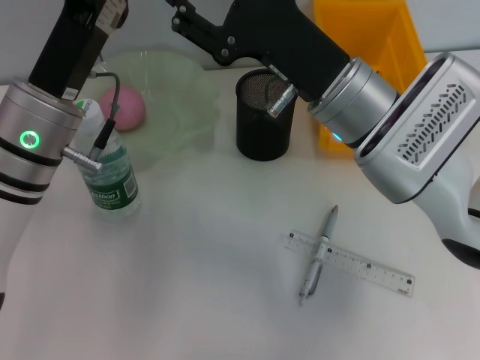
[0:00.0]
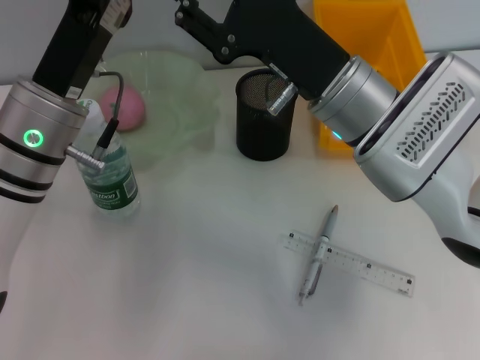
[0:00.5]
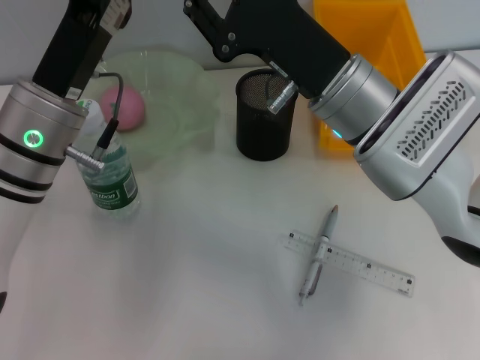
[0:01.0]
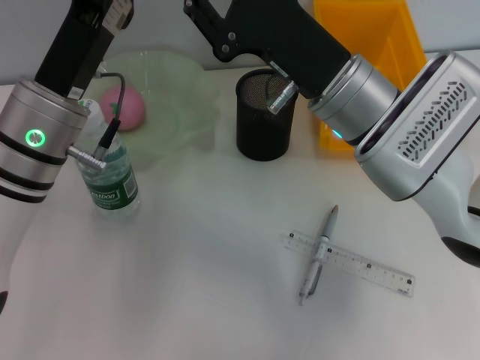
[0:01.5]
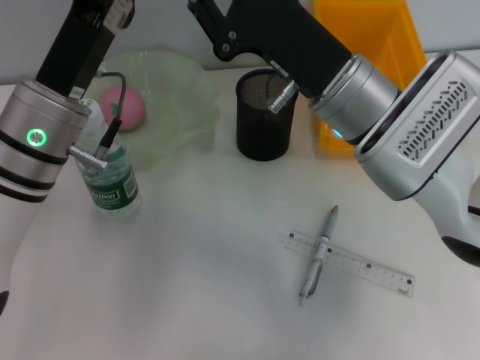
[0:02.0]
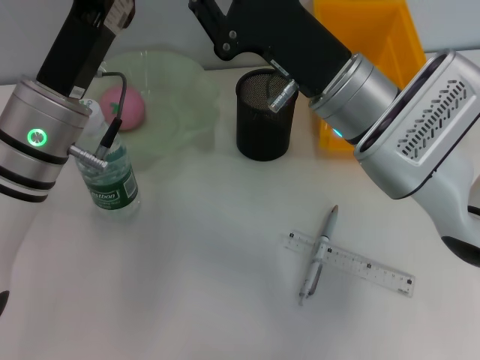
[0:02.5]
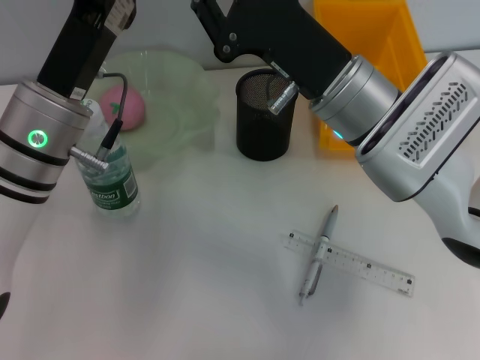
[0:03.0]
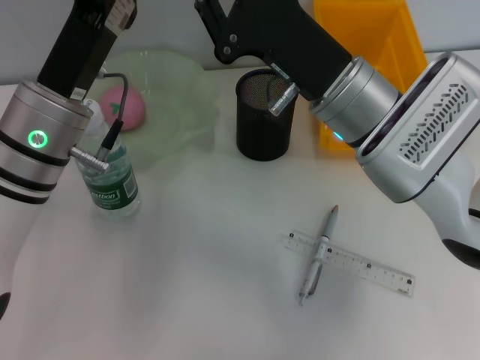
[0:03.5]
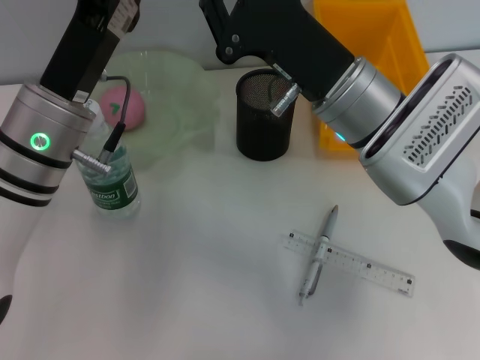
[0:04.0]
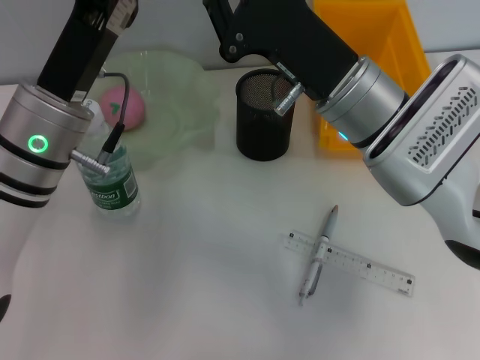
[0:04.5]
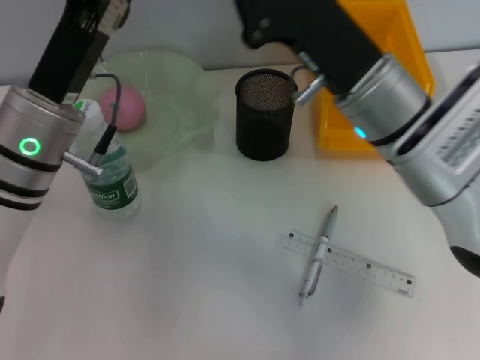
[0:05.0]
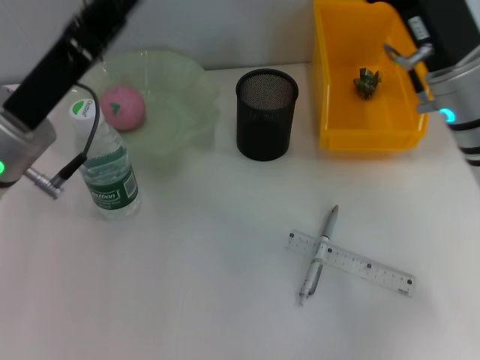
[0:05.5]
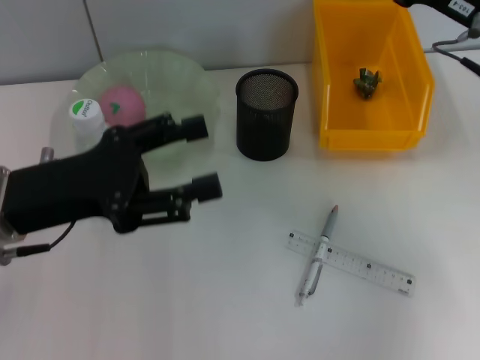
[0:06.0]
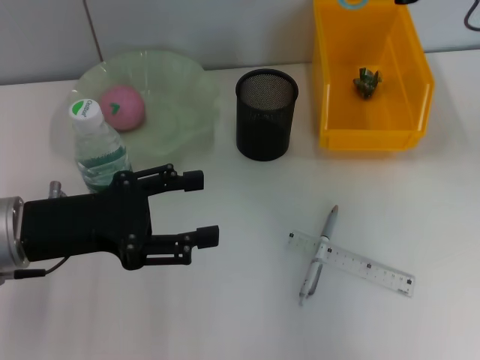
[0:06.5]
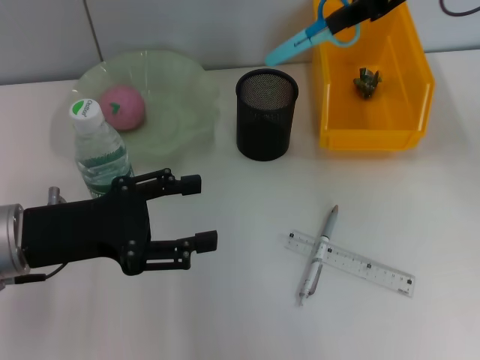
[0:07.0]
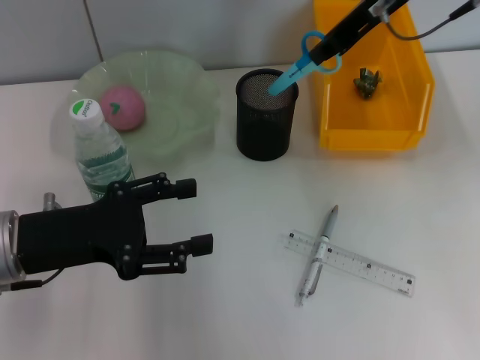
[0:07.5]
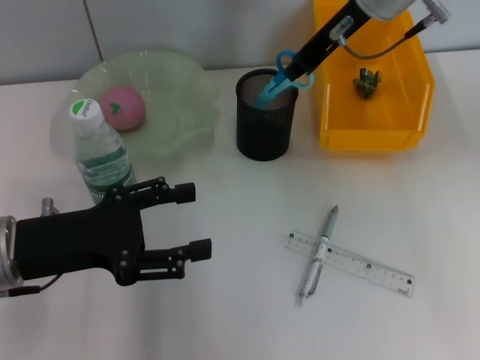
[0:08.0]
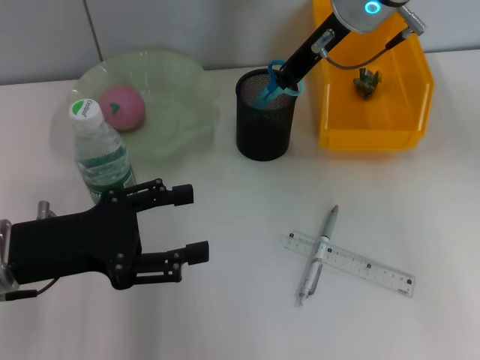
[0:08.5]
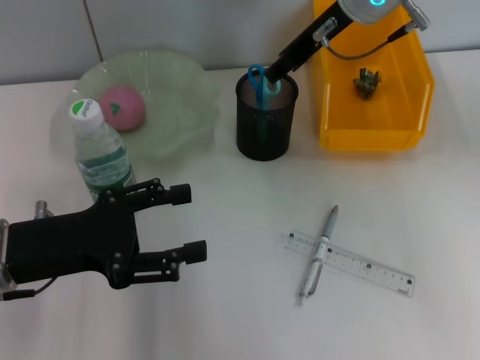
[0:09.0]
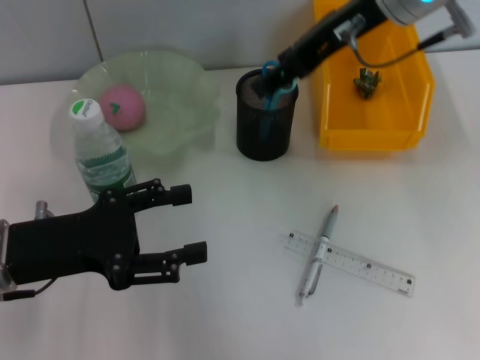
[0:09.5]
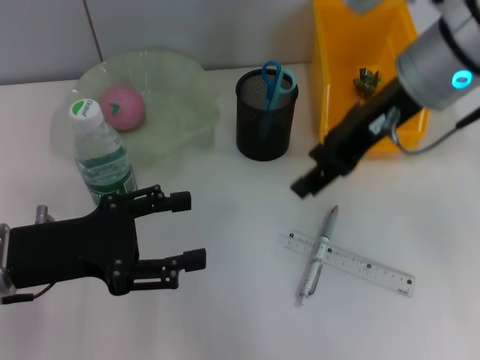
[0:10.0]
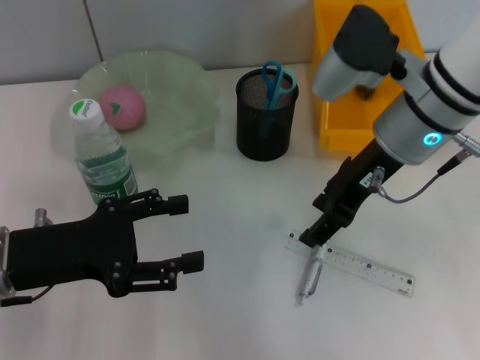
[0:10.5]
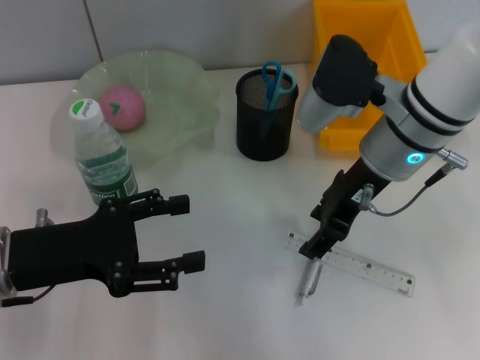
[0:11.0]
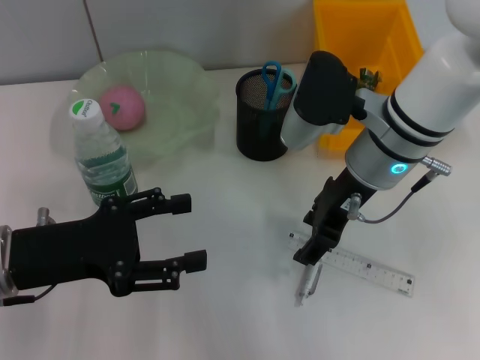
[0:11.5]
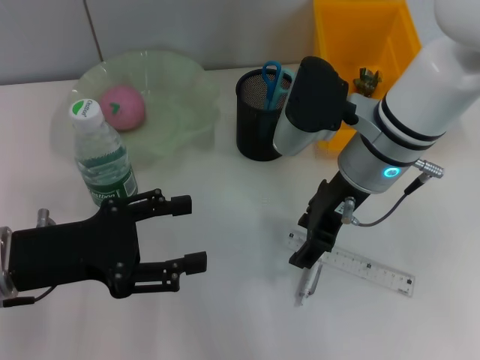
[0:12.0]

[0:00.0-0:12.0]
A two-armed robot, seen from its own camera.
Step, 0:00.0 to 0:05.0: Pass the blue scissors from the left hand to the right hand.
Step, 0:05.5 to 0:08.5: Place the blue scissors into the pen holder with the right hand.
0:00.0 to 0:02.0: The right gripper closes its fingers.
0:02.0 to 0:04.0: The two grippers keep their place.
0:04.0 to 0:06.0: The left gripper goes roughly 5 cm to the left, and opens its fingers. The right gripper heads to the right, covering roughly 15 cm.
0:06.0 to 0:08.0: The right gripper moves to the left, forward and upward, about 15 cm.
0:08.0 to 0:10.0: The right gripper goes some 10 cm backward, and opens its fingers.
0:10.0 to 0:12.0: The right gripper moves downward, approximately 10 cm.

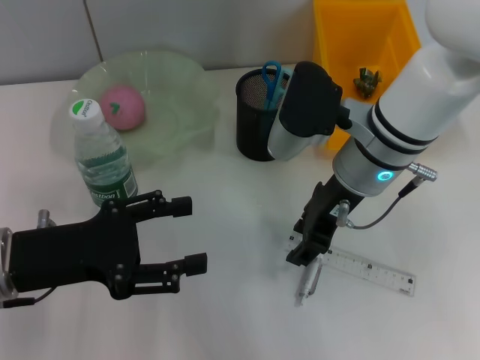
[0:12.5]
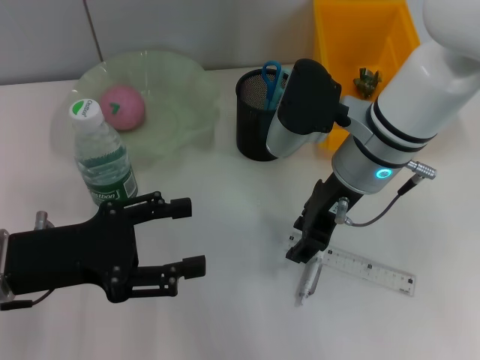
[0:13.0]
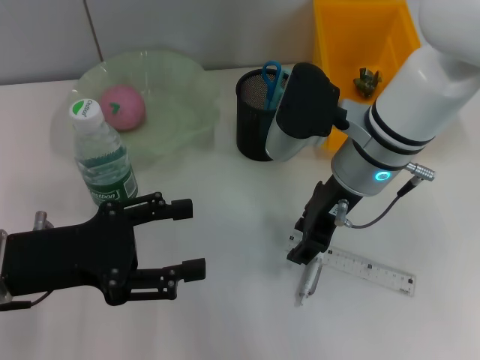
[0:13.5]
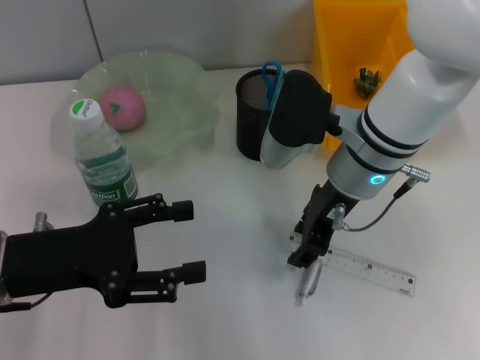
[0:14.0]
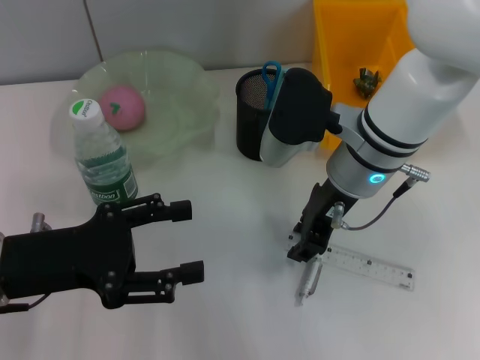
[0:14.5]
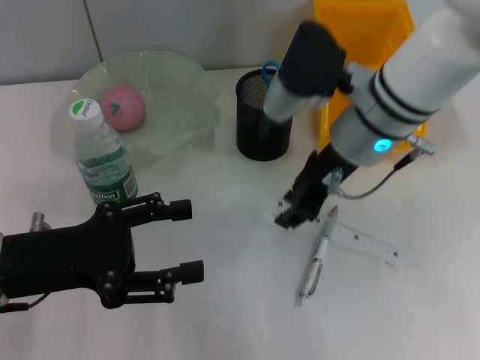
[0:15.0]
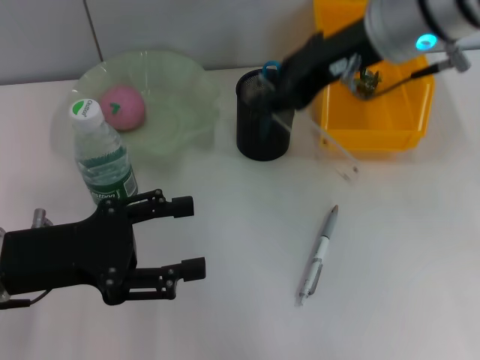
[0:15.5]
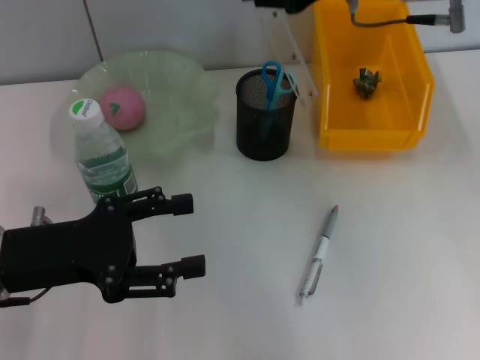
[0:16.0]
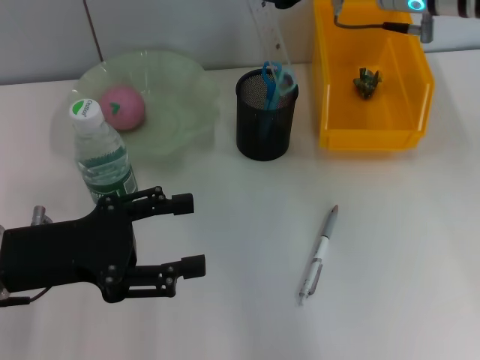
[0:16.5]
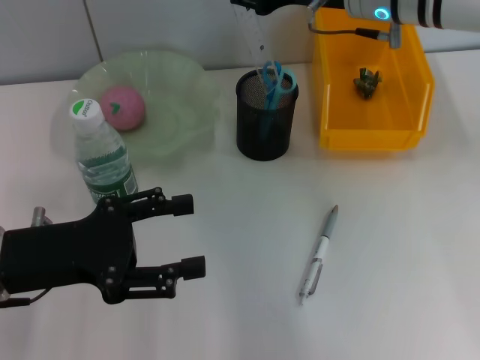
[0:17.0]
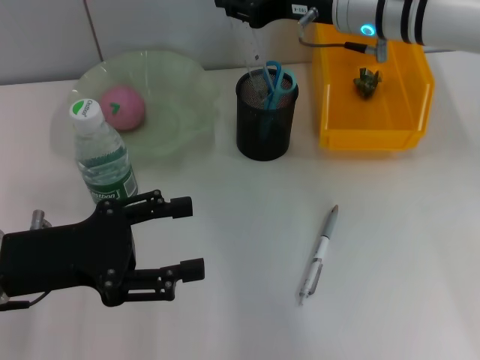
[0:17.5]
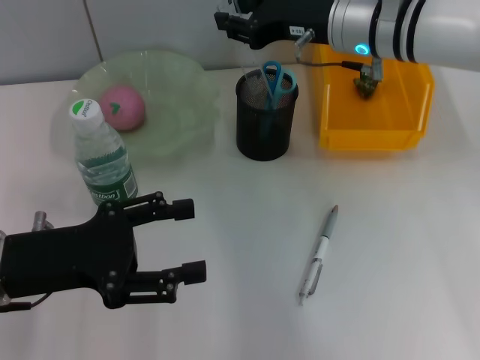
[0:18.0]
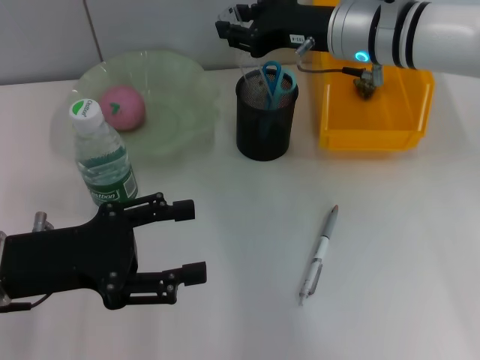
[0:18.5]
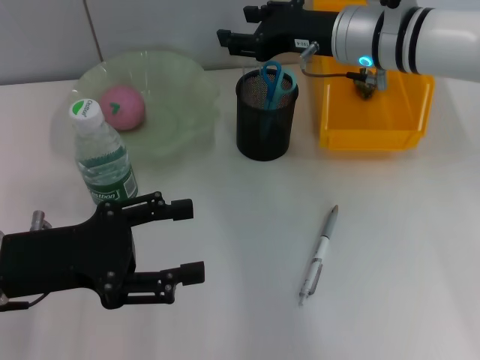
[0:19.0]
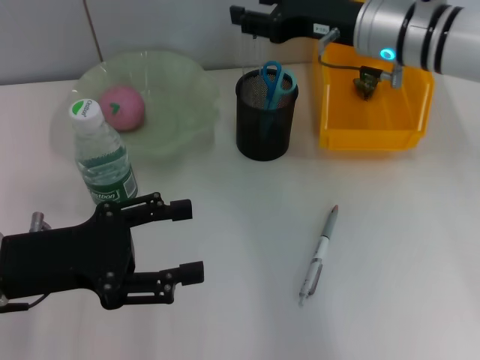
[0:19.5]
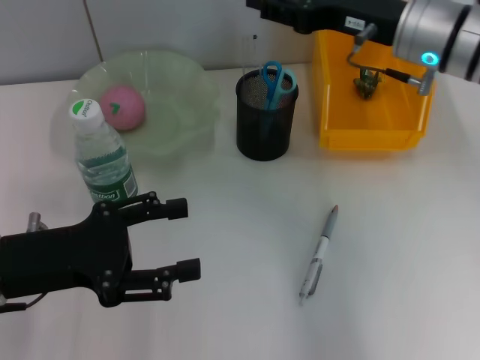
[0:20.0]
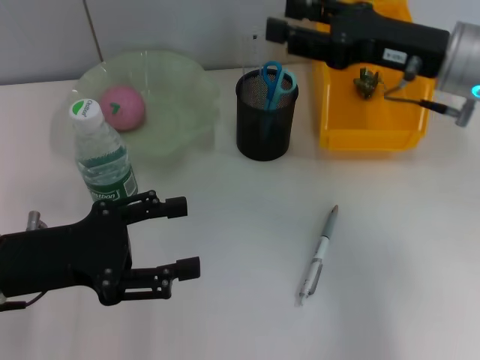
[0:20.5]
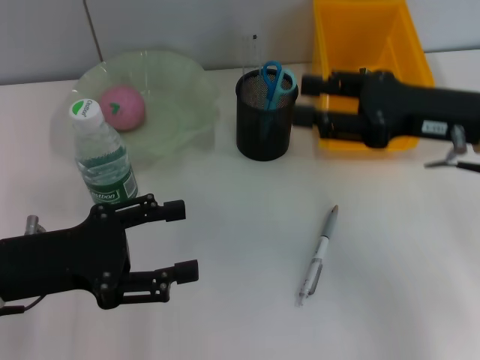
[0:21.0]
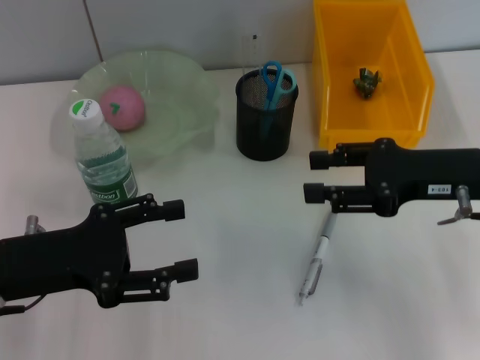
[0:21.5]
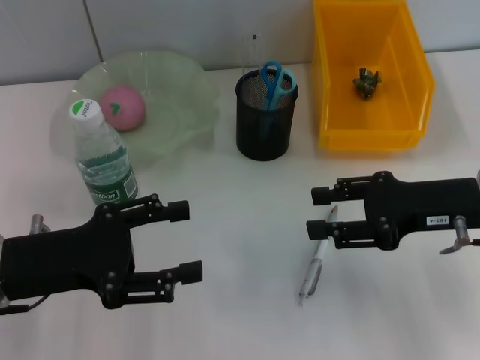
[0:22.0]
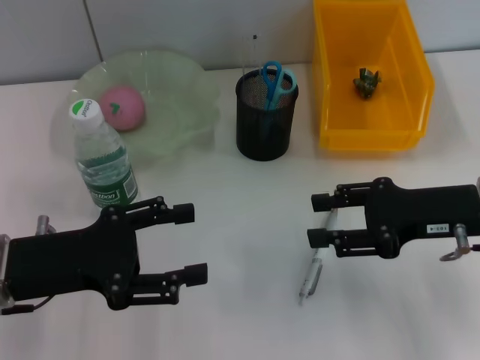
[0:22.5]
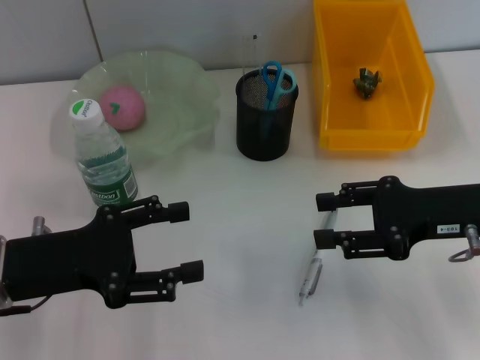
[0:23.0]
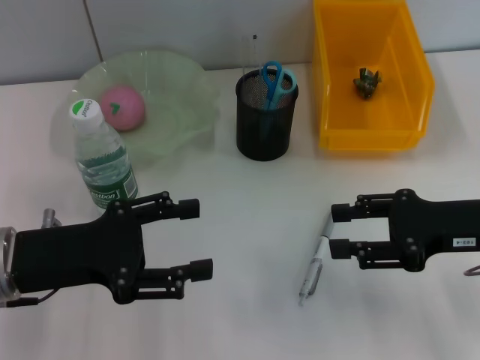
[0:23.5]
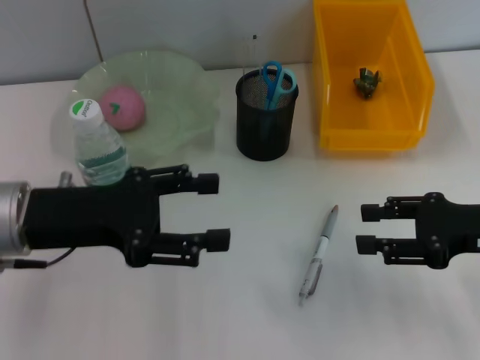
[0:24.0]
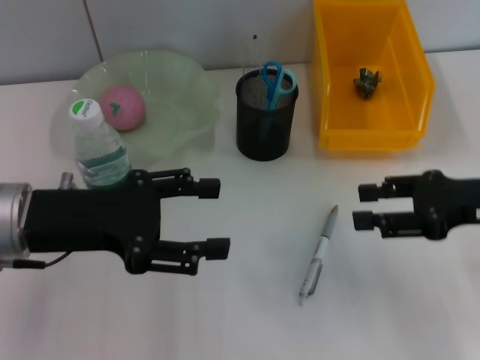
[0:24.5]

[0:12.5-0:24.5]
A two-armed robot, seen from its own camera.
Step, 0:12.5 to 0:14.5: Grab the ruler with the right hand.
Step, 0:15.0 to 0:19.0: Place the ruler into the pen holder with the right hand.
0:12.5 to 0:14.5: Both grippers stay put.
0:14.5 to 0:16.5: The right gripper is displaced upward and to the right by about 10 cm.
0:16.5 to 0:18.5: The right gripper moves downward, about 5 cm.
0:18.5 to 0:20.5: The right gripper shifts about 10 cm to the right and backward, and opens its fingers.
0:20.5 to 0:22.5: The right gripper shifts roughly 10 cm backward and downward.
0:22.5 to 0:24.5: The left gripper changes place by roughly 5 cm.

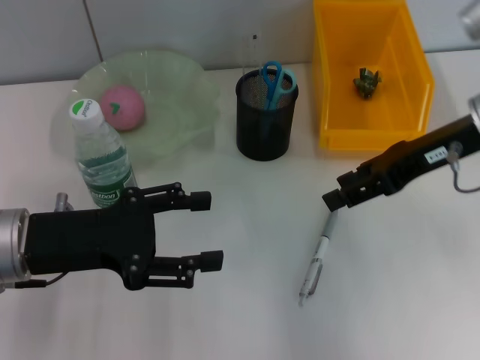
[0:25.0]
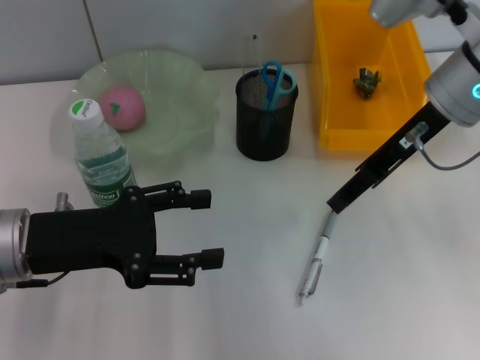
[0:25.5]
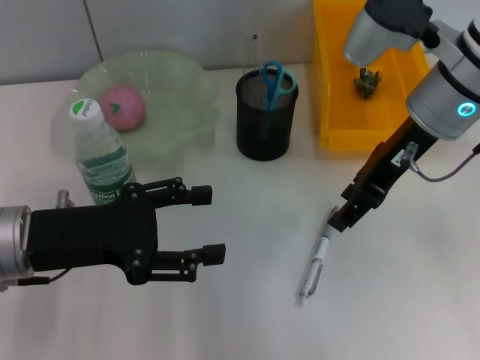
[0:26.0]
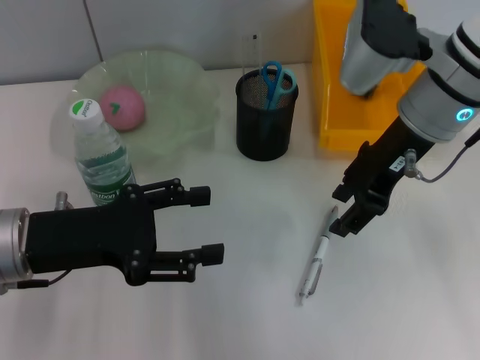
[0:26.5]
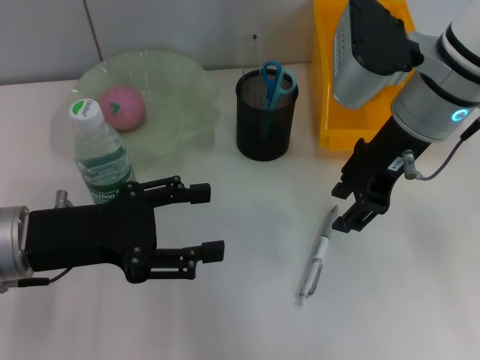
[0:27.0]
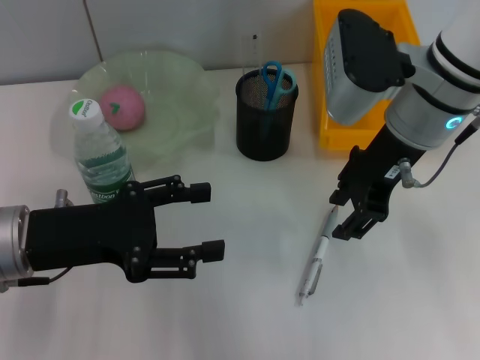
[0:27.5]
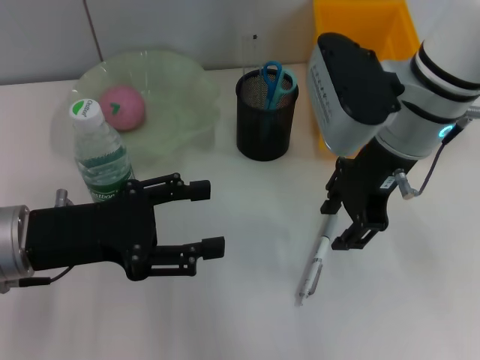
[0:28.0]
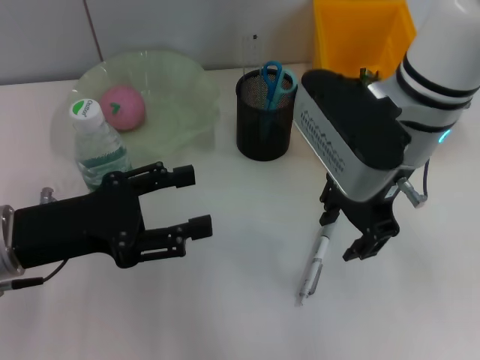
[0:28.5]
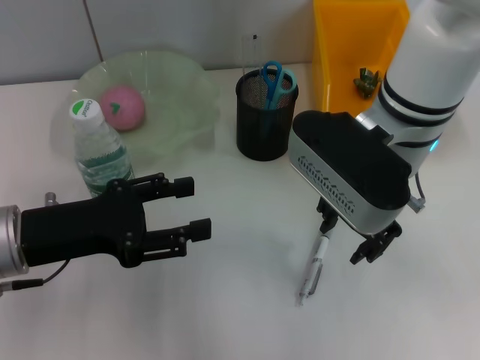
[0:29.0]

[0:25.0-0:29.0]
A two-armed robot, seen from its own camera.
0:25.0 to 0:27.0: The right gripper moves to the left, approximately 10 cm.
0:27.0 to 0:29.0: The right gripper shifts by roughly 5 cm.
